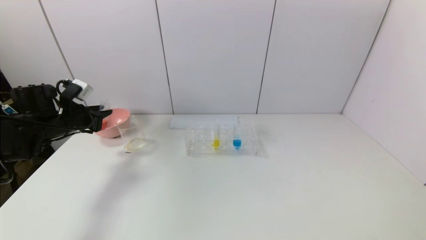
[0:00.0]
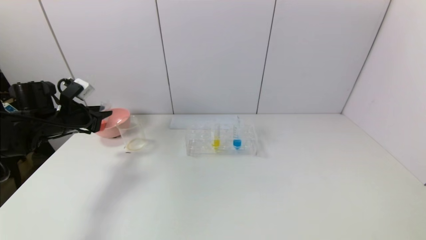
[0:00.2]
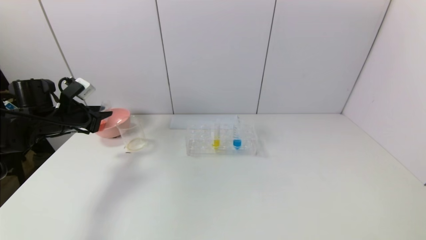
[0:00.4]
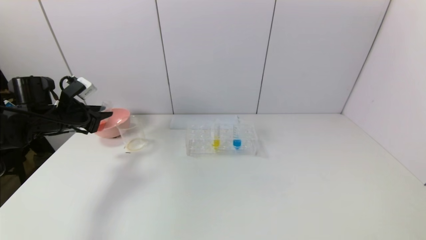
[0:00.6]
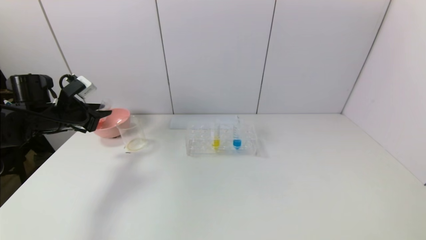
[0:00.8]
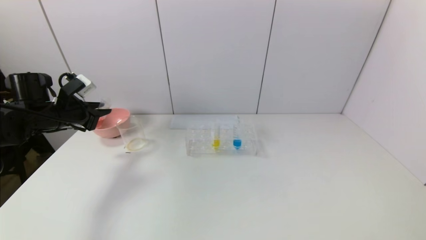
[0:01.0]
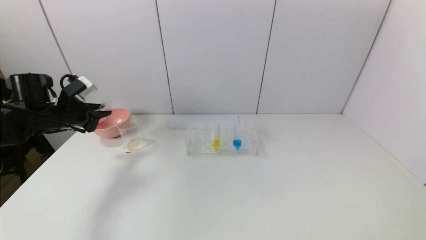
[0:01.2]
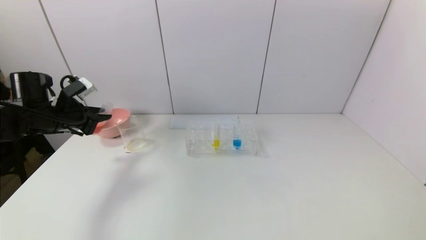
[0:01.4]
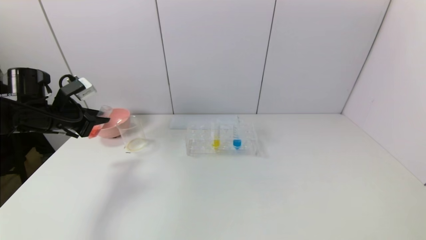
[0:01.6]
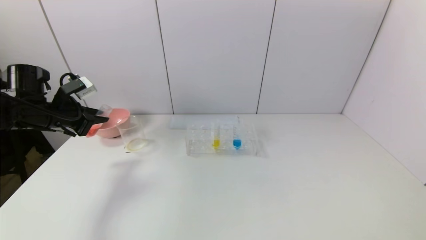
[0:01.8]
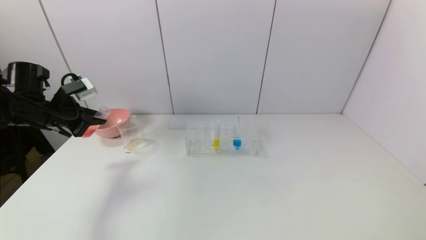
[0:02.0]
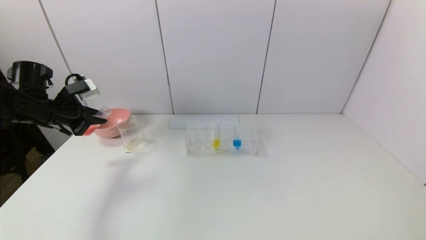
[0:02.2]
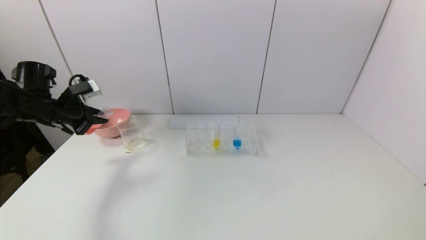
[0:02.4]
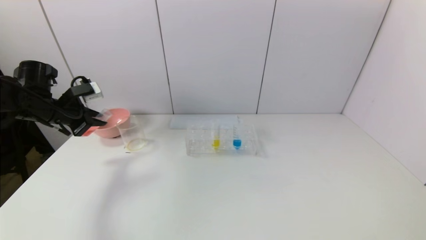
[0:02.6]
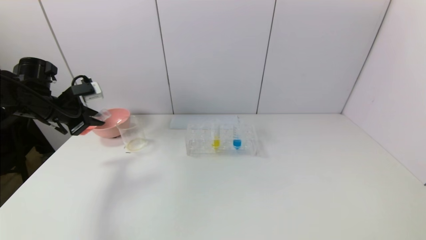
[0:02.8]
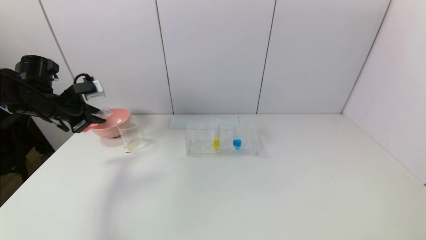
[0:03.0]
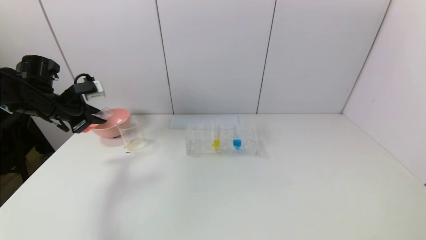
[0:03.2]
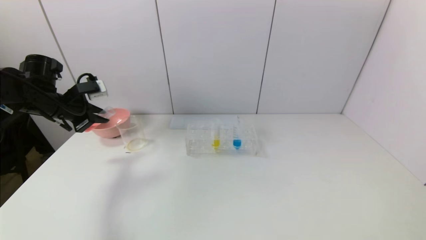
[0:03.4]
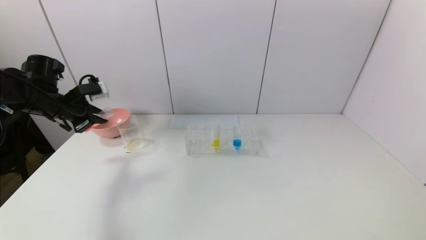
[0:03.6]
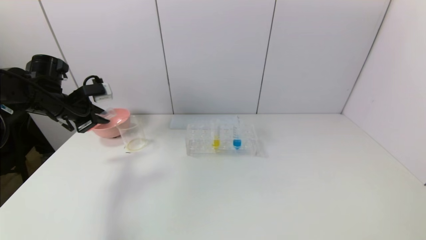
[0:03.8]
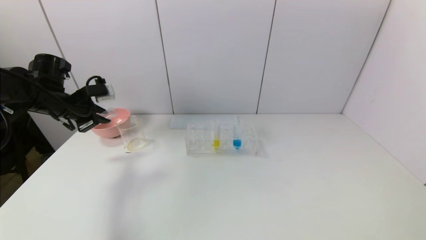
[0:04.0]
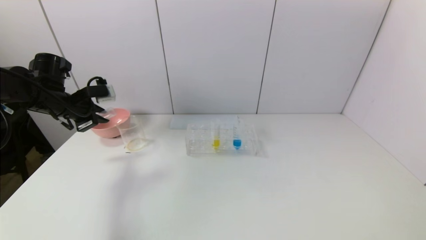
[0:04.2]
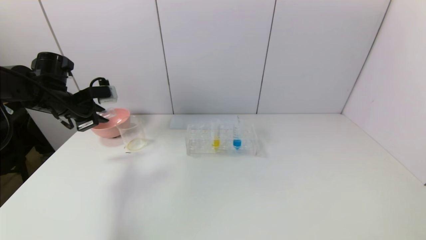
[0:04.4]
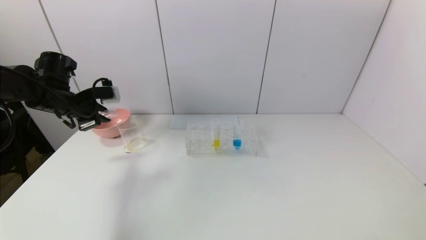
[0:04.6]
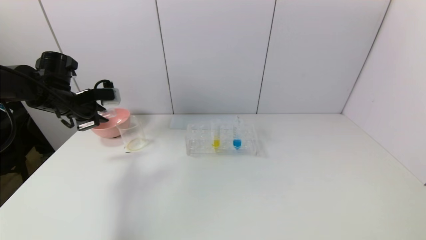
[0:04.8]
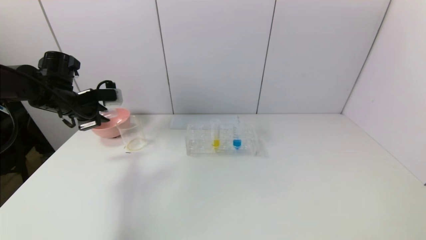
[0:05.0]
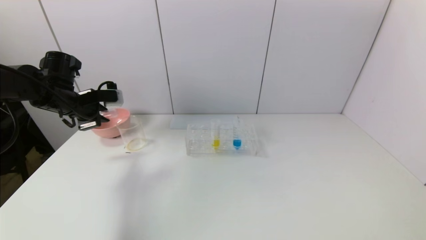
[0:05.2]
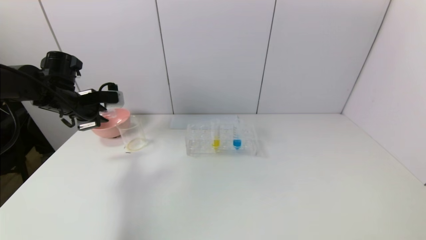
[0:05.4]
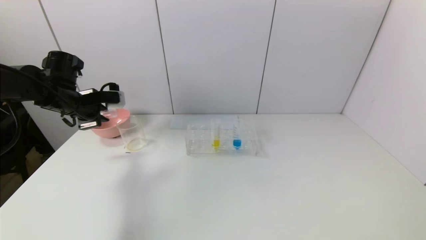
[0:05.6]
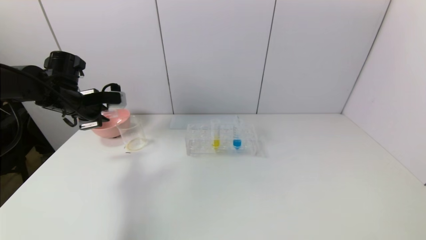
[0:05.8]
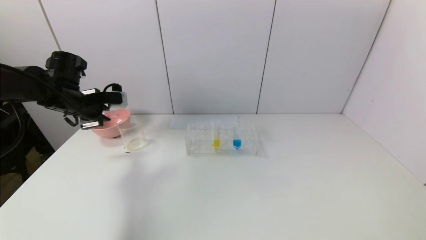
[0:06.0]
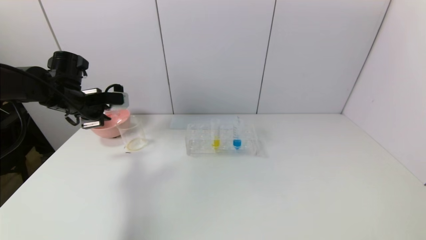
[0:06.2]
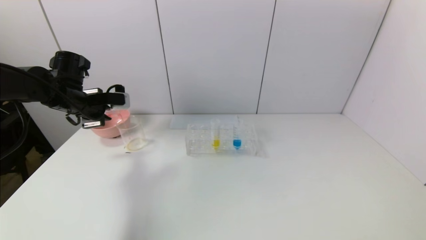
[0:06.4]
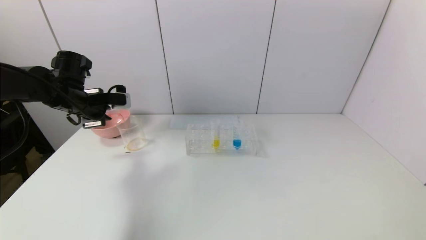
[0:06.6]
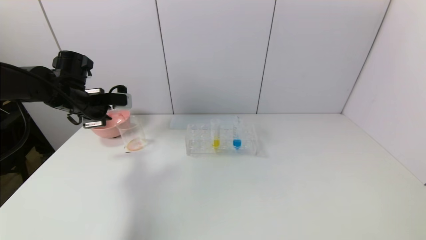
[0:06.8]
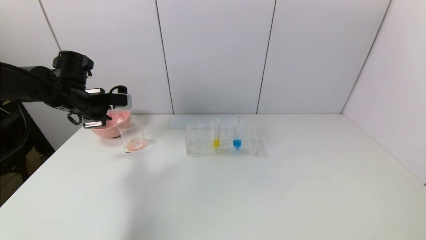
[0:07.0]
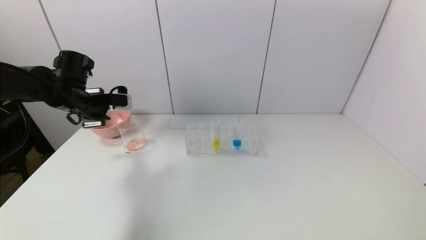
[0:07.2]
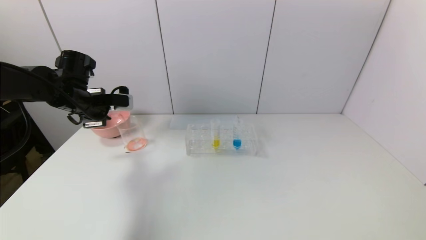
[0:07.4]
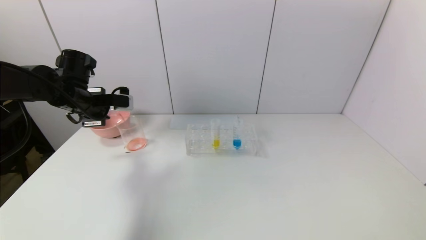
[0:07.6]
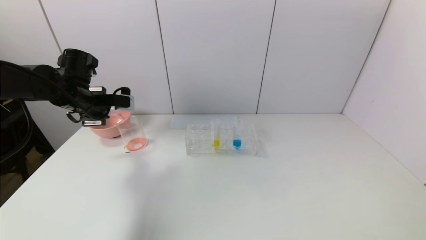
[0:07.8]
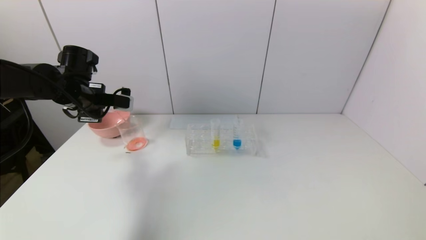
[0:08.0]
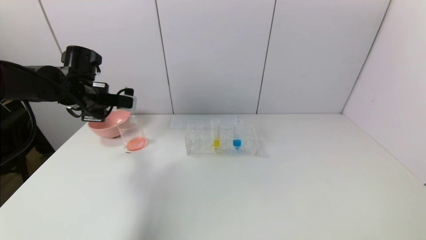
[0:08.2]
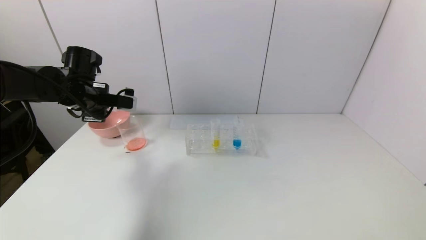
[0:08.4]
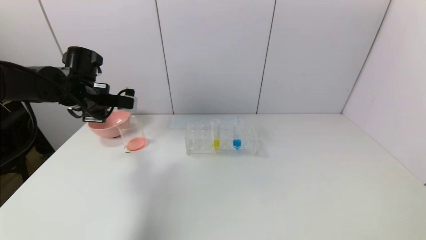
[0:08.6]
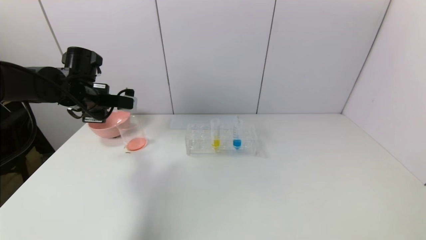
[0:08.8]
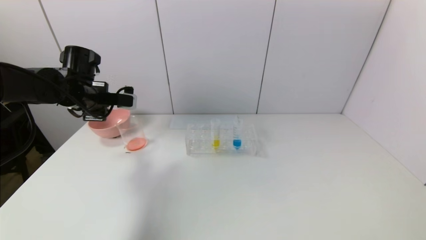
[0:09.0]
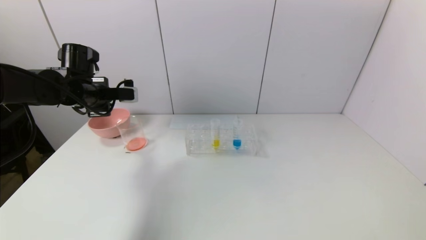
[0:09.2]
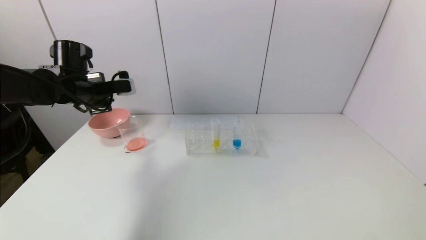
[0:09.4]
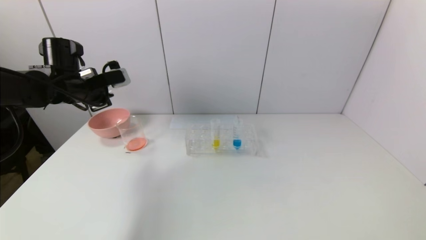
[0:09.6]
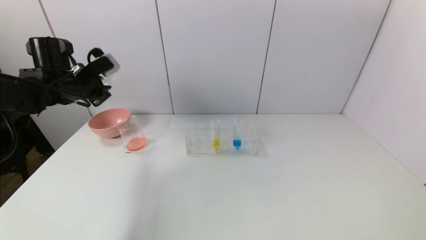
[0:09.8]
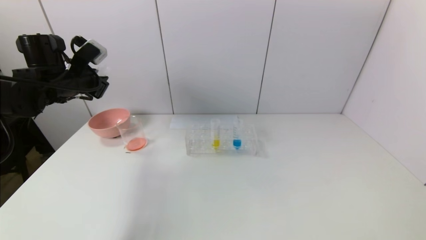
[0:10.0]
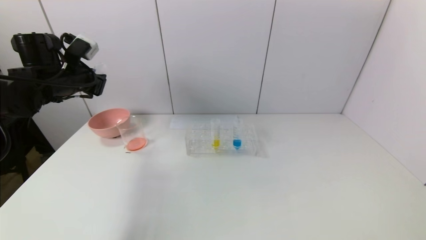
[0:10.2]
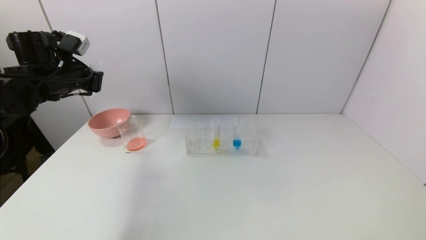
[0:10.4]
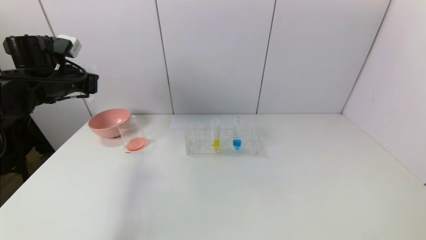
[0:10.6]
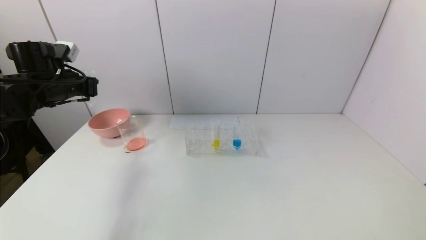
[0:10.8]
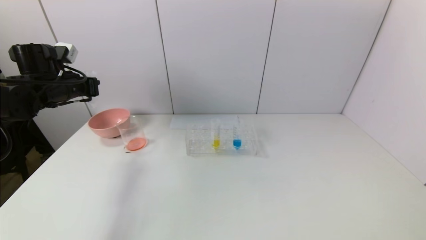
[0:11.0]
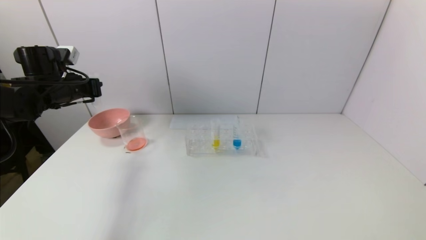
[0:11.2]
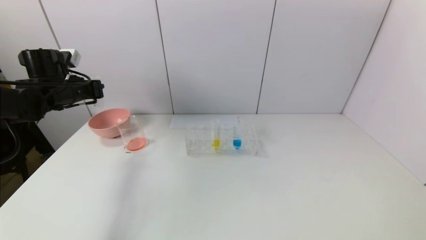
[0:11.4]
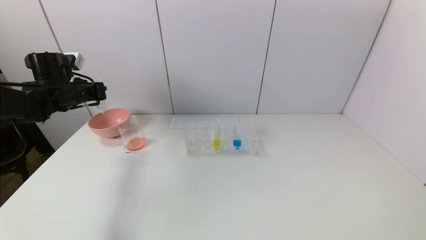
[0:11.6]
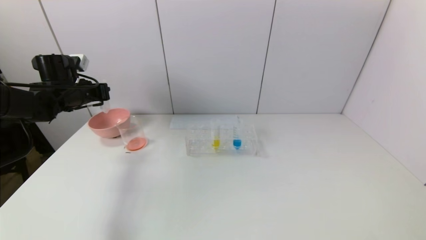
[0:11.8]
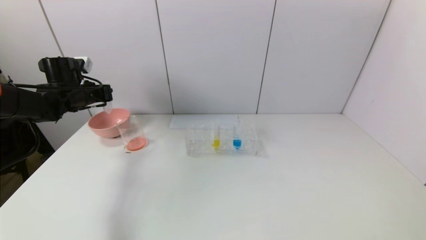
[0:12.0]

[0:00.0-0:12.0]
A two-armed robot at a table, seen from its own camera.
Task of the whole recording: pick up the test tube with yellow pigment and the test tube with red pigment by grippers and pour them into the beaker.
Step, 0:00.0 to 0:08.2: Pour the red reagent into the graduated cylinder with the left gripper.
0:00.0 to 0:01.6: The grippers stay close to where they were, moving slightly.
0:03.0 to 0:04.4: The grippers stay close to where they were, moving slightly.
0:04.4 to 0:06.0: The grippers stay close to where they were, moving slightly.
0:06.0 to 0:07.6: The grippers make only small movements.
0:07.6 to 0:09.0: There are only small adjustments of the grippers.
0:09.0 to 0:10.4: The left gripper moves about 5 cm.
0:10.4 to 0:12.0: The left gripper heads downward and forward, covering about 10 cm.

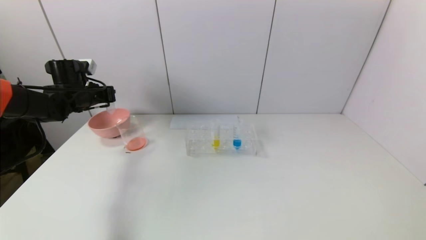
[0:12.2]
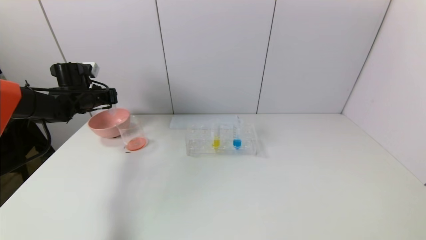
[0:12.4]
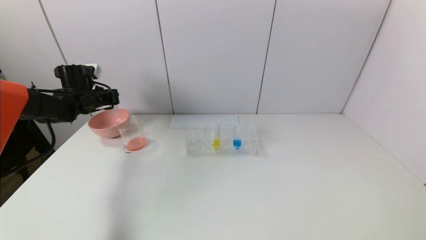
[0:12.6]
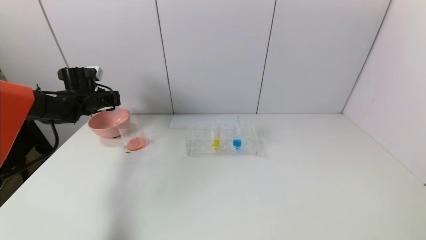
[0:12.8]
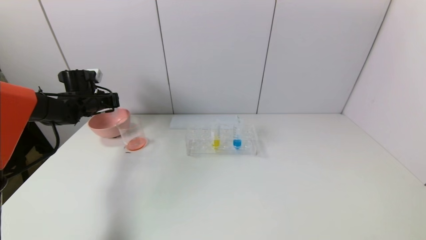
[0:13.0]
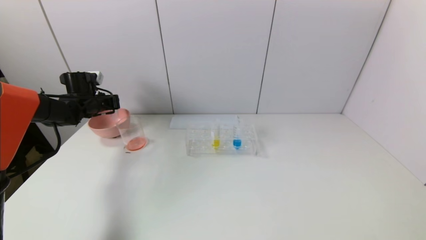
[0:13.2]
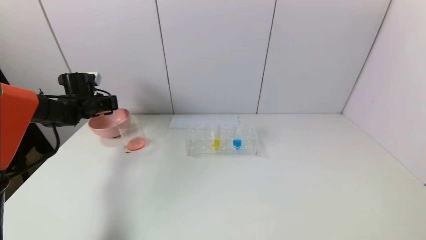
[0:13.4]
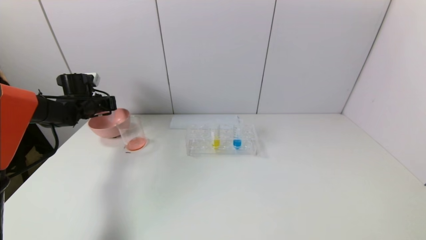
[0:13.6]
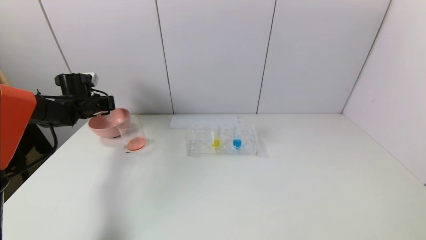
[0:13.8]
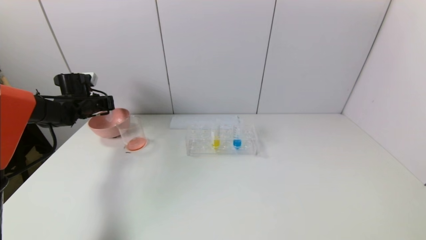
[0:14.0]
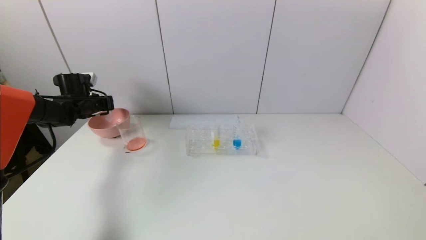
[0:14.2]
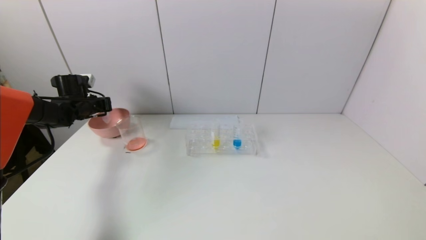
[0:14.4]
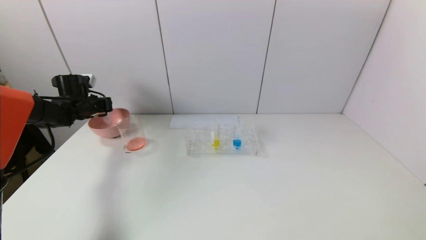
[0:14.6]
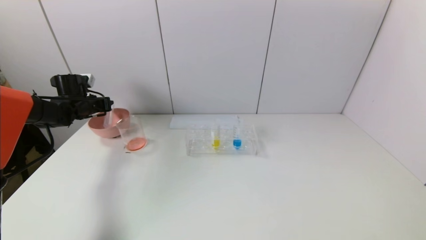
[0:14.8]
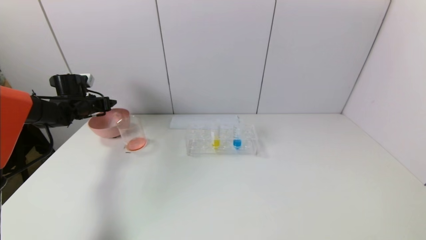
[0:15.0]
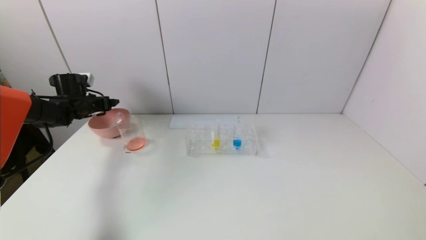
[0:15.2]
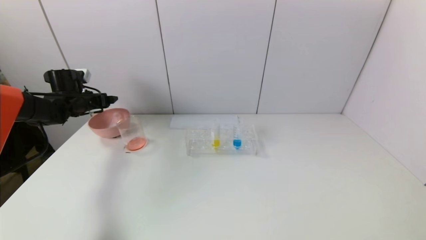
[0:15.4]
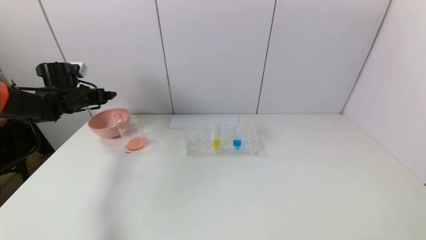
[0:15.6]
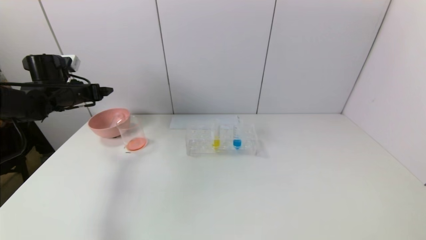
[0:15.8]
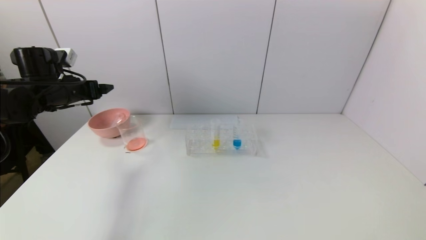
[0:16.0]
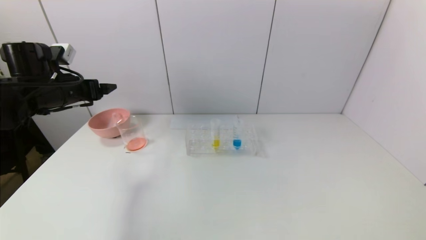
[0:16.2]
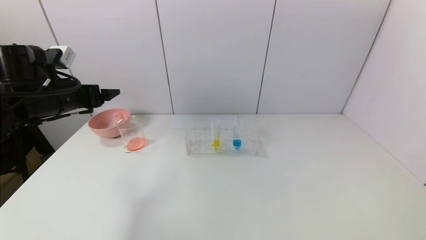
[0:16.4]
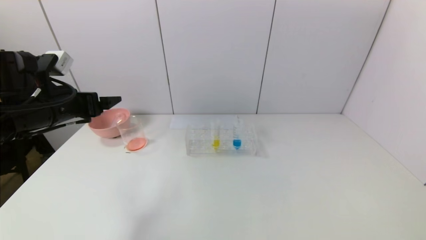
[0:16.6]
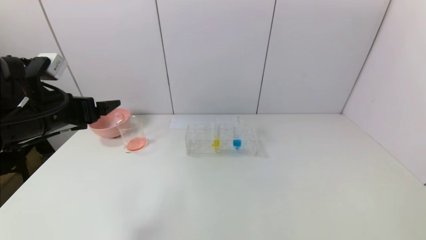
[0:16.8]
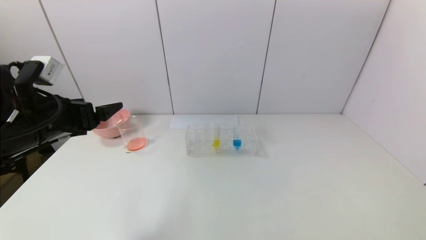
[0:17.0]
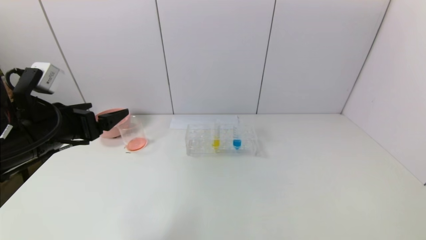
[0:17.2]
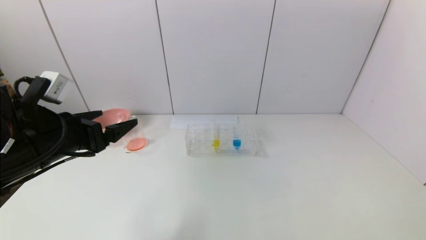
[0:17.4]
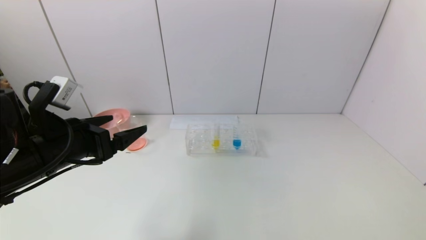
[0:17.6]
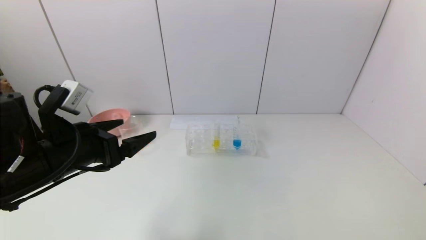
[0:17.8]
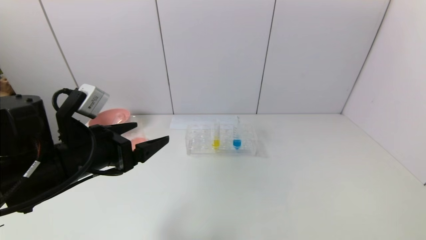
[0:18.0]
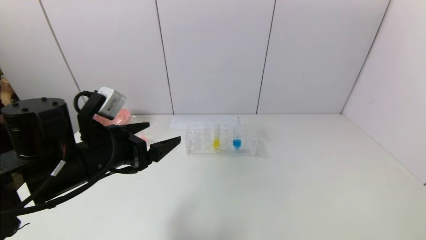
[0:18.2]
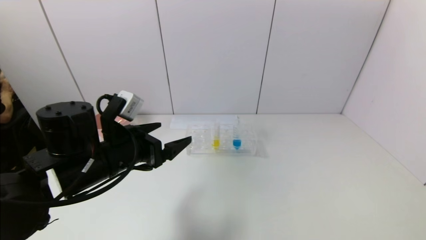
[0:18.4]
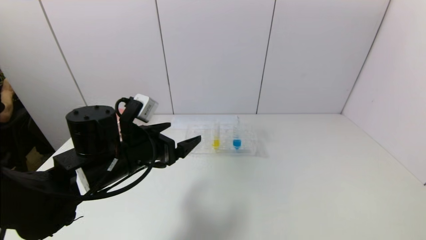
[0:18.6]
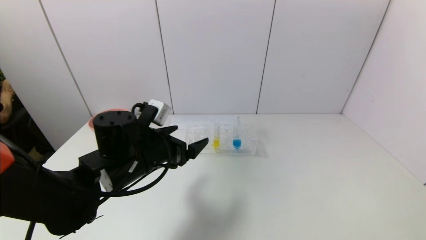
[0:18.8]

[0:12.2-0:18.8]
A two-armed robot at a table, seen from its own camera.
Task of the whole recording: pick up the test tube with yellow pigment and the test tube with red pigment by grippers and pour them into the beaker.
Step, 0:12.2 to 0:14.8: Place the test tube into the pink bowl with the left gripper.
0:12.2 to 0:13.8: The left gripper moves approximately 5 cm.
0:13.8 to 0:15.4: The left gripper opens.
0:15.4 to 0:17.2: The left gripper shifts roughly 25 cm backward and to the right.
0:17.2 to 0:18.8: The left gripper travels to the right and downward by roughly 15 cm.
